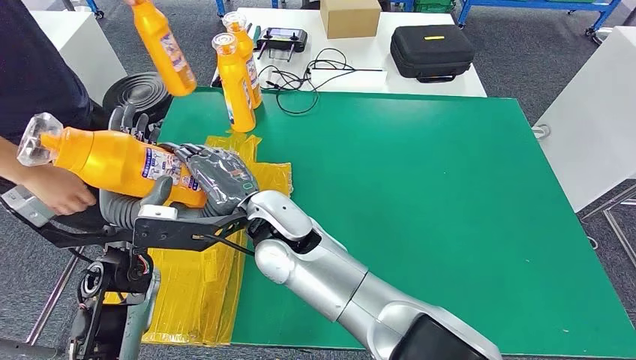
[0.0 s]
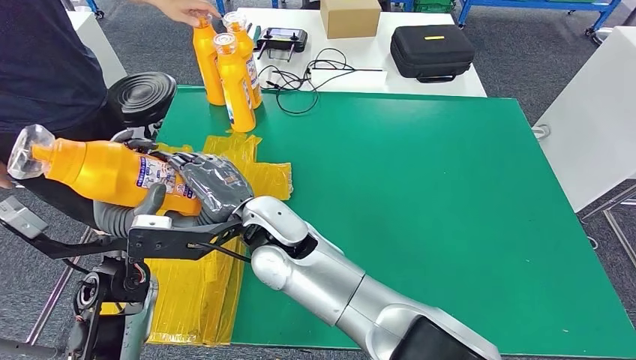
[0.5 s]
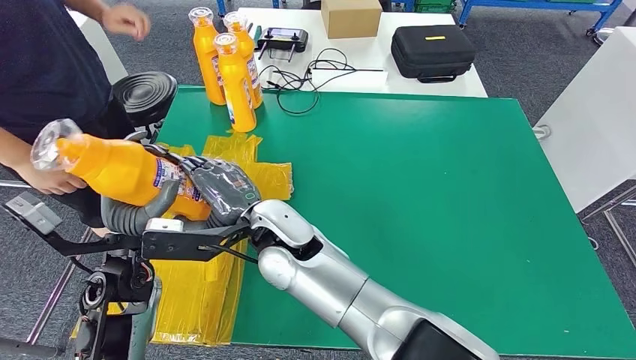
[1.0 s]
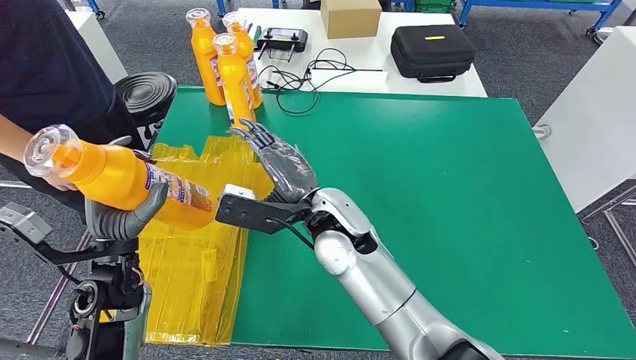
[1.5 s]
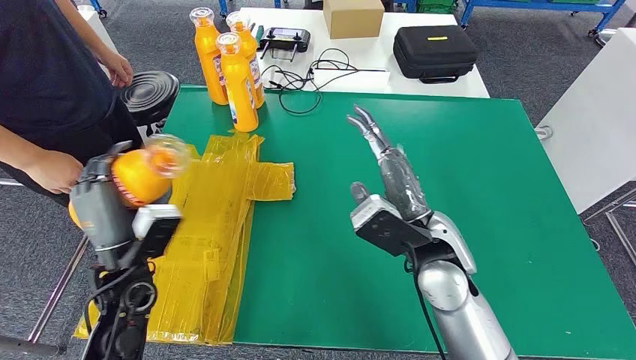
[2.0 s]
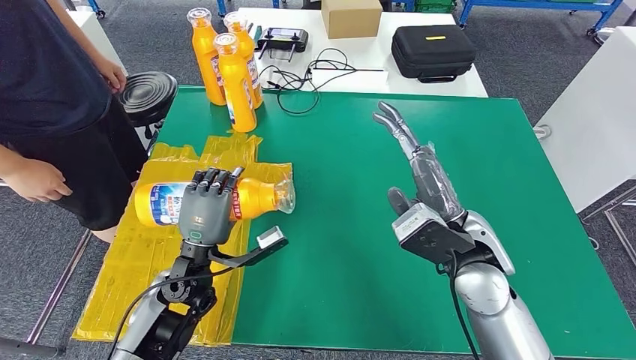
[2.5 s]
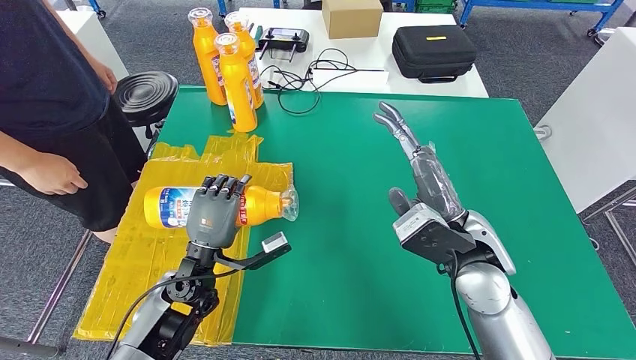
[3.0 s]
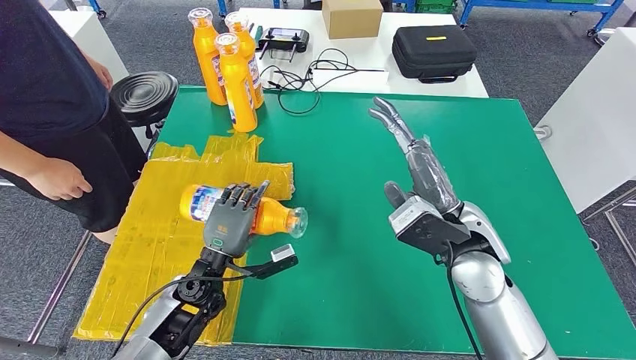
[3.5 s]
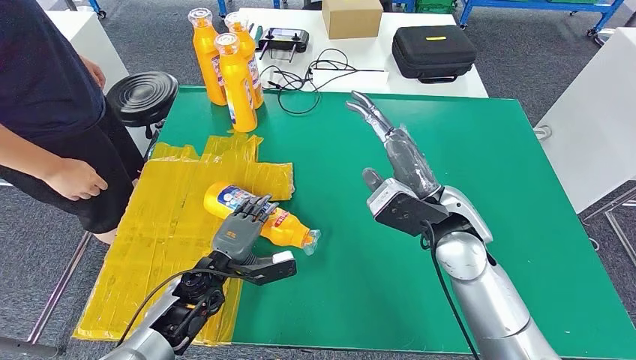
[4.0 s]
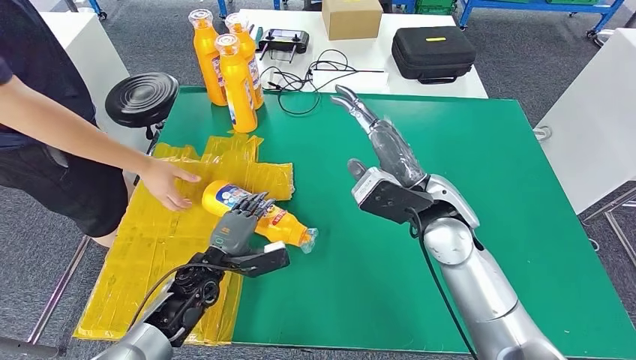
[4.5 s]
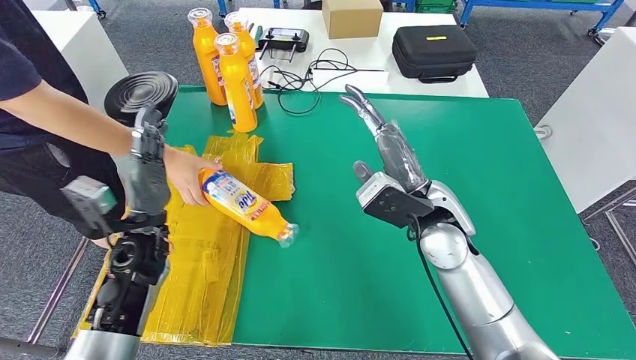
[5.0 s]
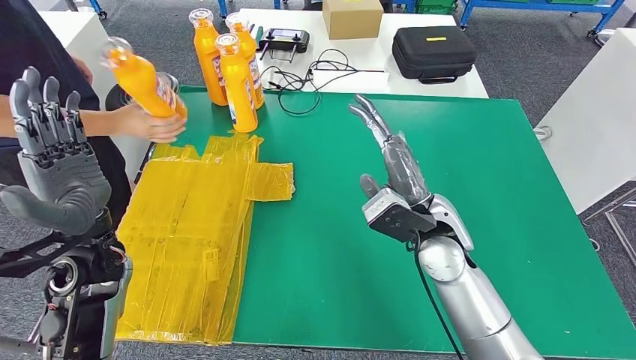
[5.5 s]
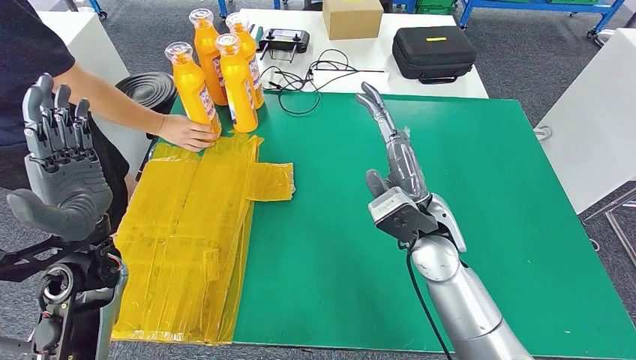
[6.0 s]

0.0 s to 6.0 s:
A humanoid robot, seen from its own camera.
Step, 0.0 to 6.0 s: Flip the fast-moving consumer goods bottle to the front side.
